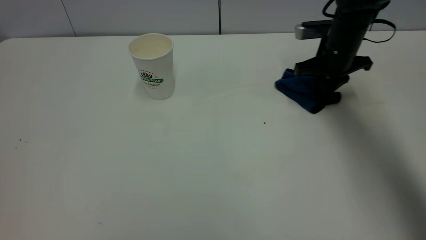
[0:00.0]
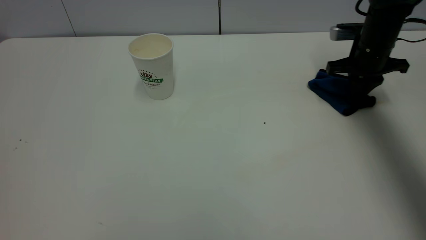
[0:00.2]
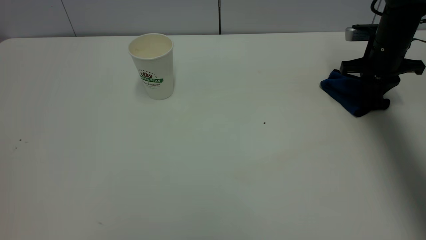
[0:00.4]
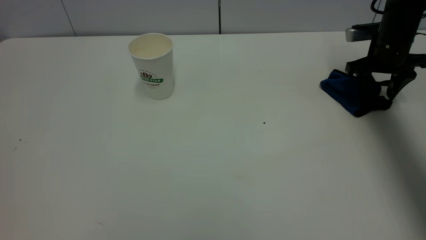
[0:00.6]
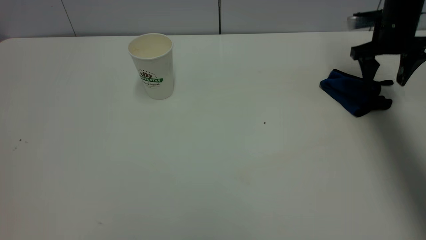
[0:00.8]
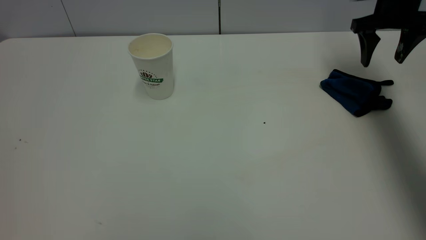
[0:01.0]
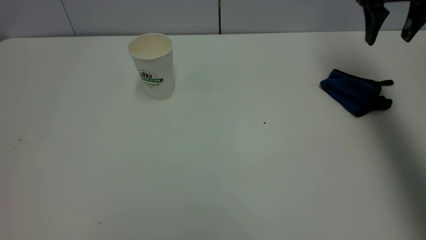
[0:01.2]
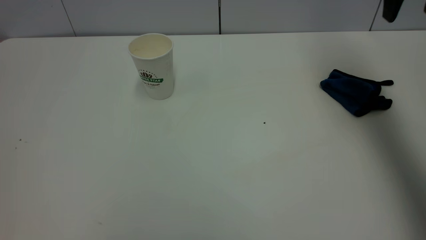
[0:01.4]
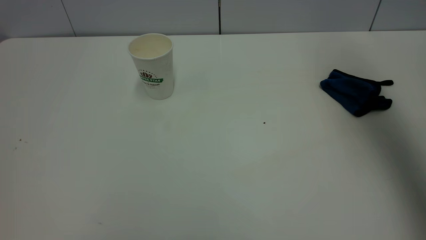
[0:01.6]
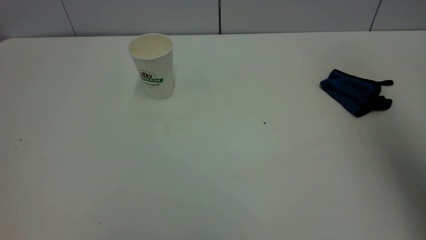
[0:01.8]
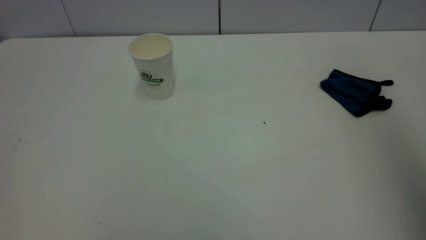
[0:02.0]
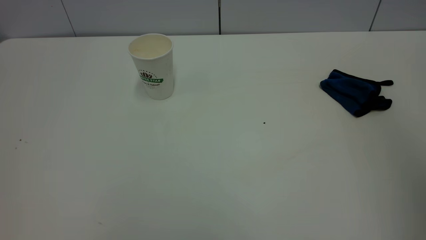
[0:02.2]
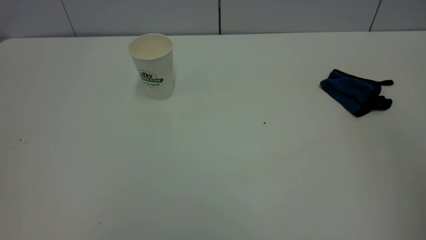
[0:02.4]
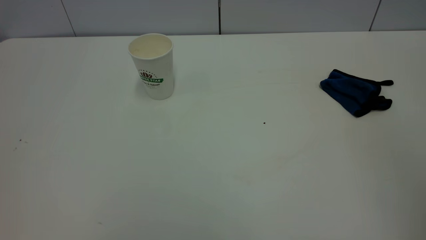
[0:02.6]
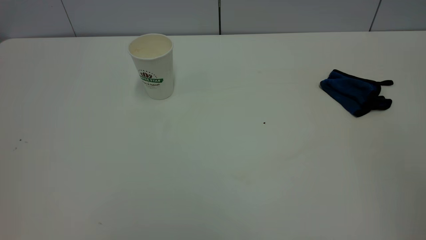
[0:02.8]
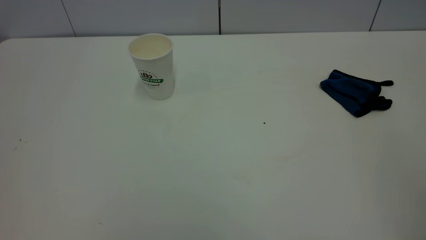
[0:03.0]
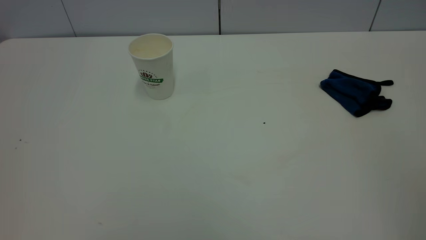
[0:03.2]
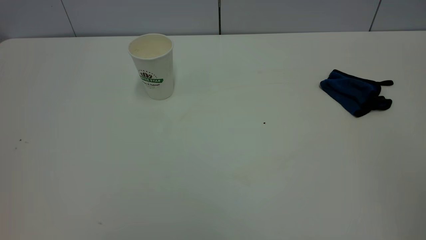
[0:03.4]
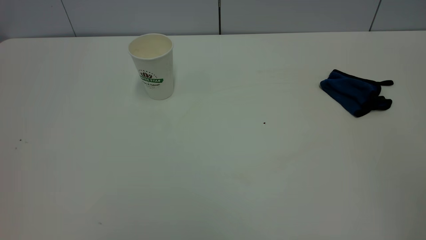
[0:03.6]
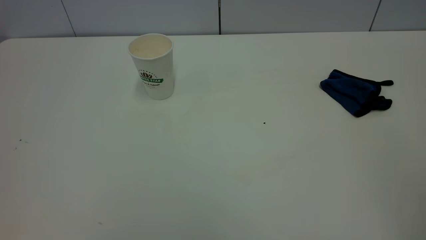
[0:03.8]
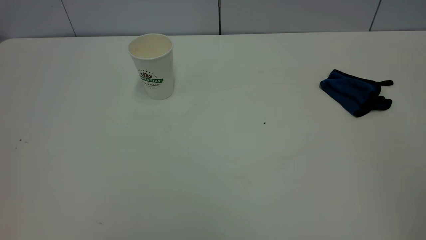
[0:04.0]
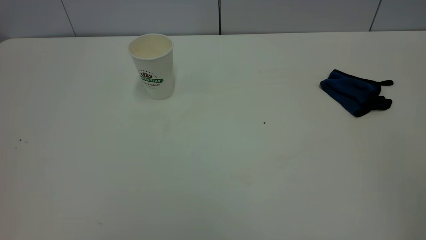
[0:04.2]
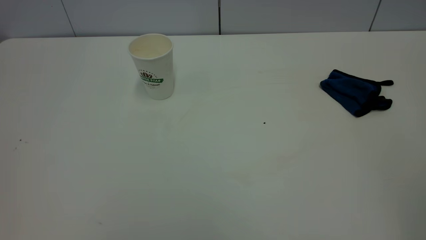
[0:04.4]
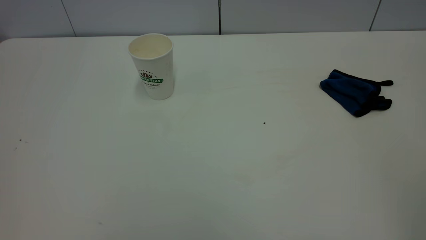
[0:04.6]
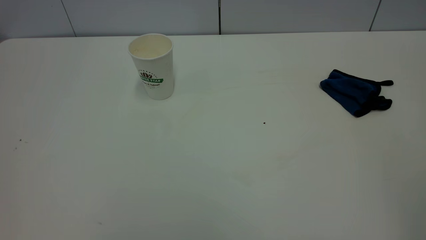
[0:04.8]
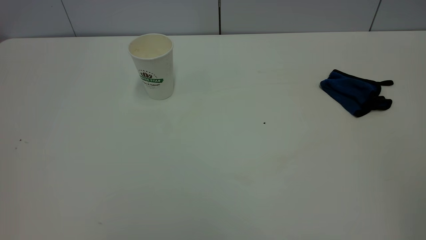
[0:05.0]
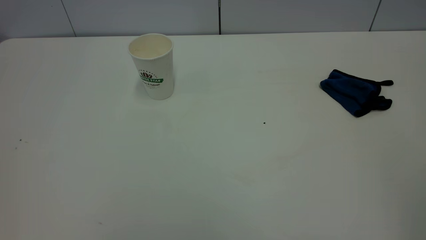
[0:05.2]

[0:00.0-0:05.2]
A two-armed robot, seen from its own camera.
Task of the whole recording: the left gripper pick up the fallen cup and place it upright, the right gripper grasp the blue rag and wipe the tea stain on the table, the right gripper put the blue rag back in its original position.
0:00.0 to 0:01.8: The right gripper heads upward and backward, covering some 40 cm, and opens up.
0:01.8 to 0:03.4: The right gripper shifts roughly 25 cm backward.
